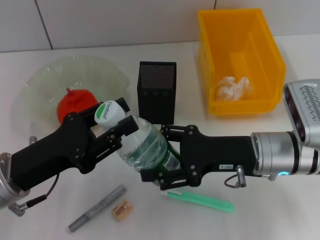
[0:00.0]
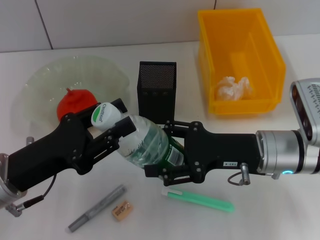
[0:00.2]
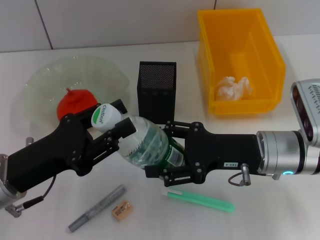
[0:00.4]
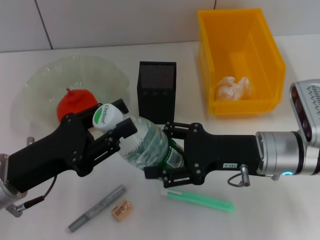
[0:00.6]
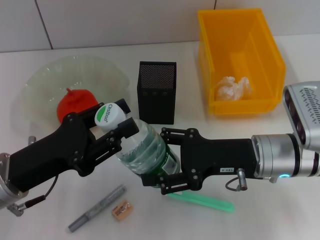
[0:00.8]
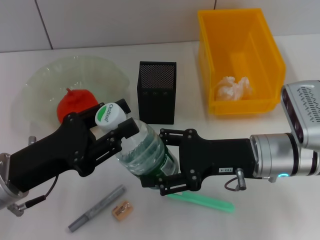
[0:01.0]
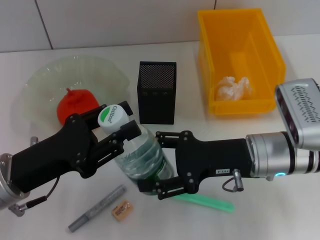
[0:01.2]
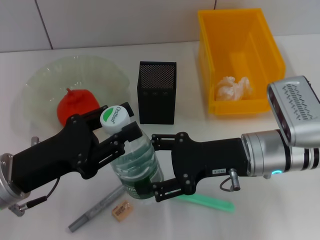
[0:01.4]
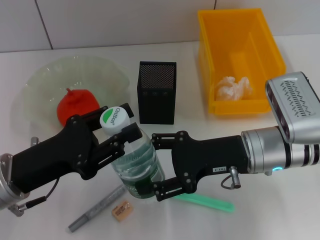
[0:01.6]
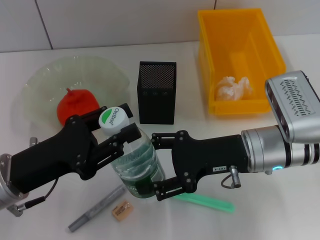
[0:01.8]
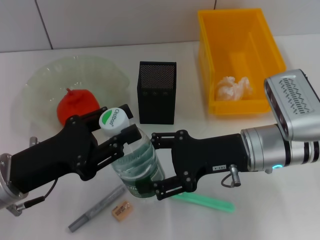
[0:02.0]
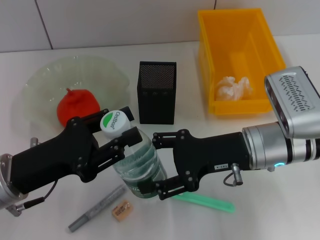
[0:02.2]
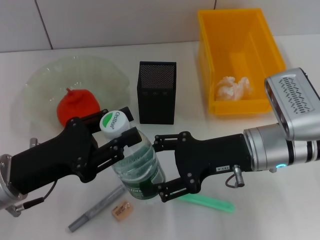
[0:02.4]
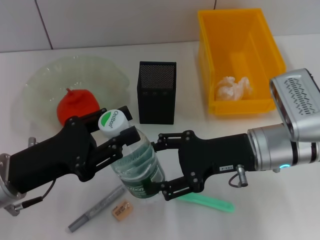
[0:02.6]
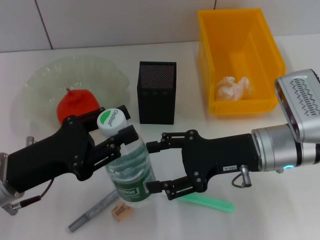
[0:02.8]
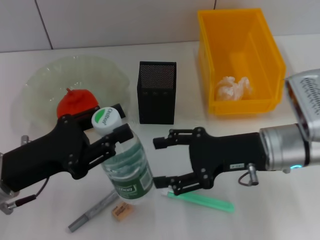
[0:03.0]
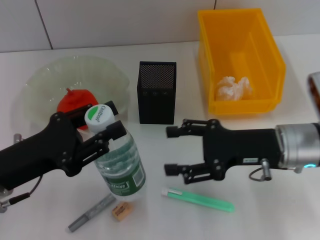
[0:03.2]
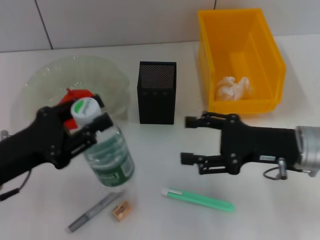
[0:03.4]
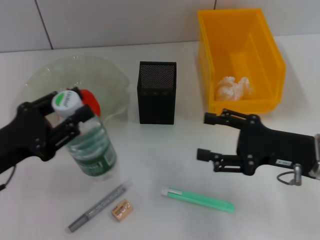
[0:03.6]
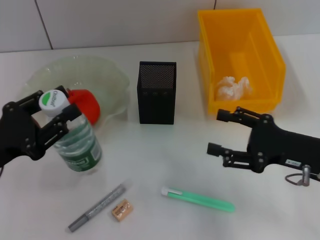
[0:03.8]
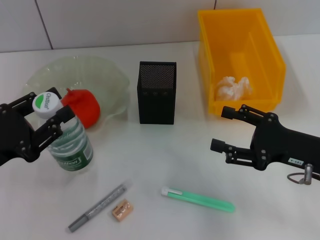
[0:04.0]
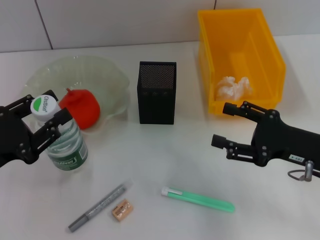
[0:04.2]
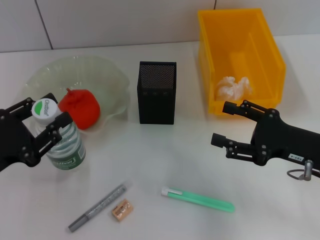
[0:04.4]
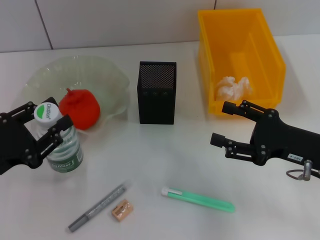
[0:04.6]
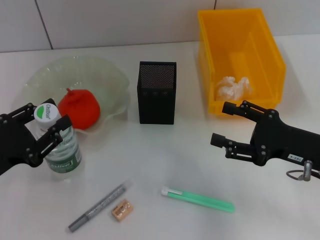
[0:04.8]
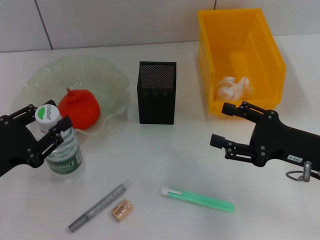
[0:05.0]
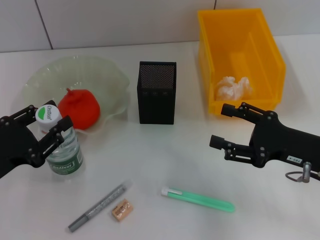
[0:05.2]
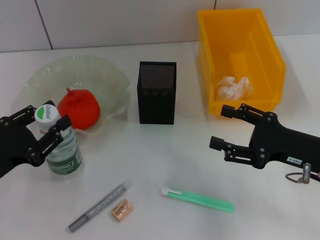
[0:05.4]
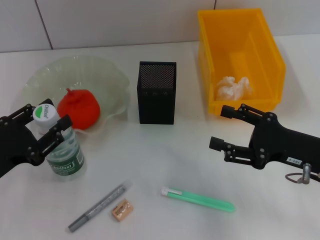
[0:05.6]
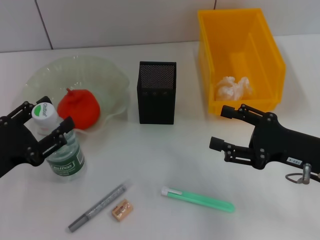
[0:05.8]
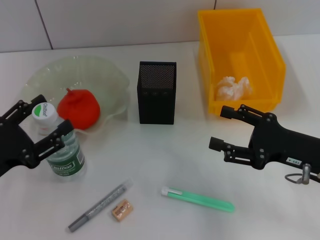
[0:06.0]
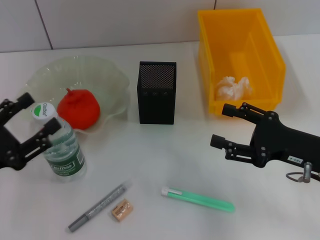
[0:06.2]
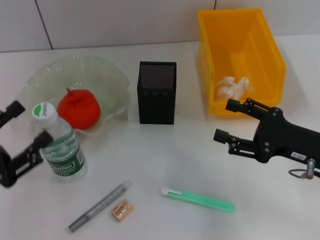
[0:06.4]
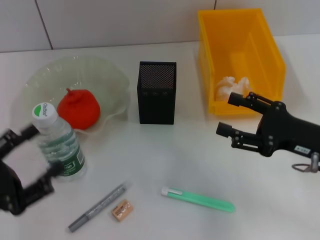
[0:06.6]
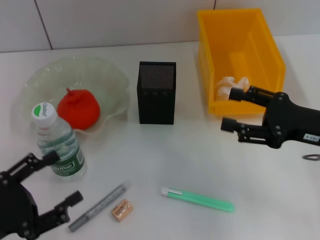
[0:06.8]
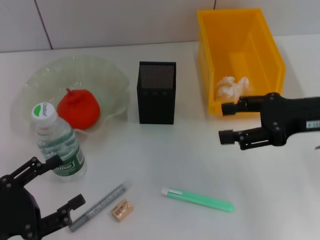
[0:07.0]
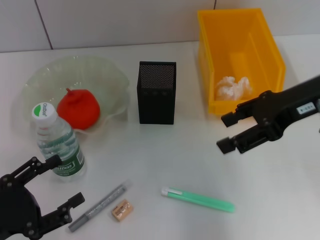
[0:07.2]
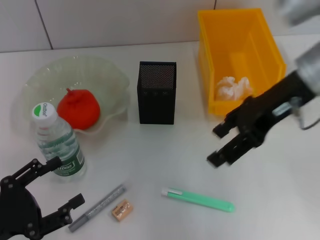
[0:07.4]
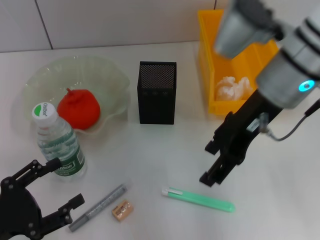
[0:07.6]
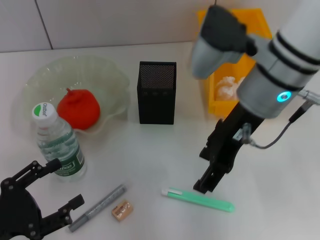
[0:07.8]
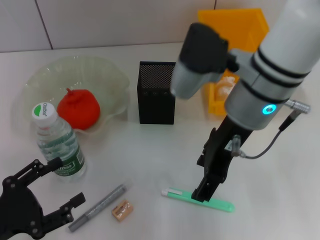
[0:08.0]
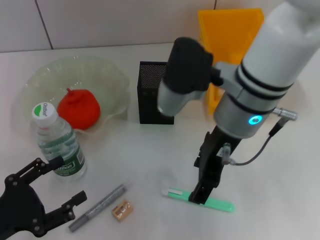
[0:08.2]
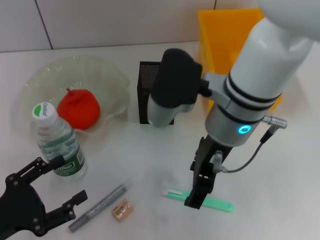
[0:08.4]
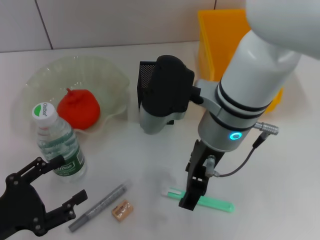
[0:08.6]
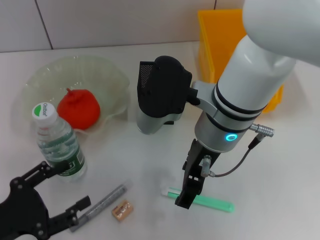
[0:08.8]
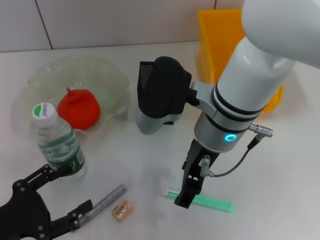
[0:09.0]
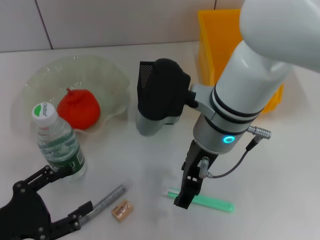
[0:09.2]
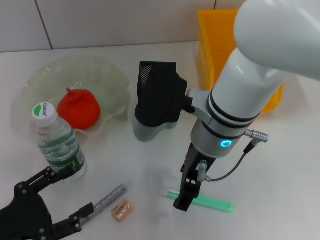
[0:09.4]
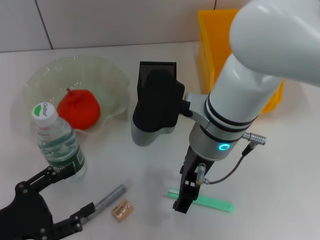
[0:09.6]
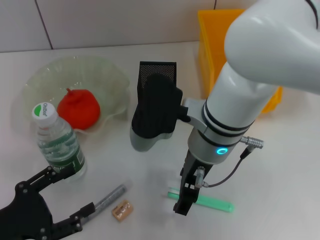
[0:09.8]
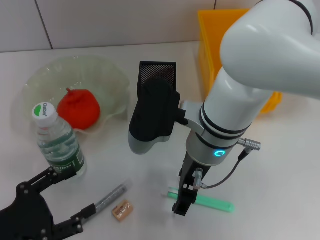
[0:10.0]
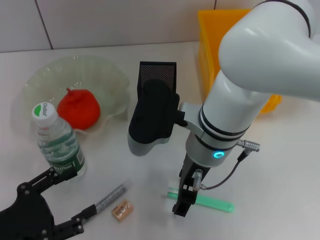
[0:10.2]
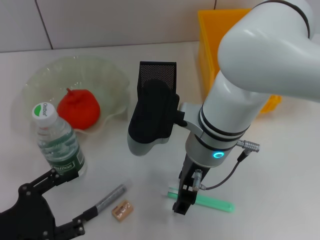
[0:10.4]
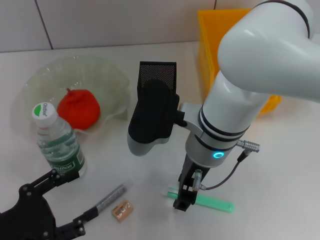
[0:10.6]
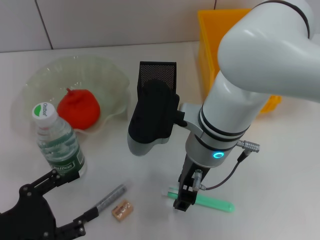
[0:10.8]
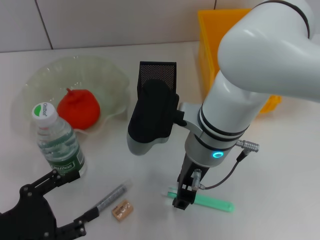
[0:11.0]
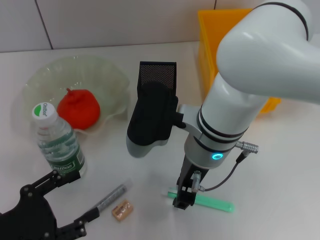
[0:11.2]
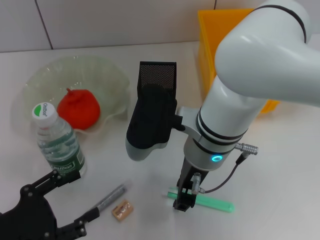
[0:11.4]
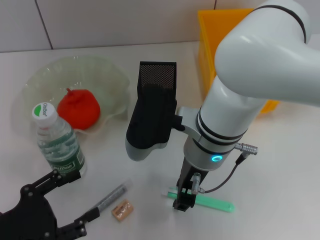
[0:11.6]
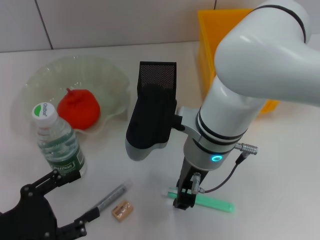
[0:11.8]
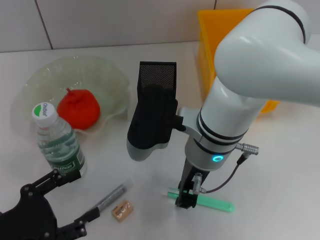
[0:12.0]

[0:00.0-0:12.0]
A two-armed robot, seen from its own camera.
Step, 0:00.0 to 0:02.8: Pass the water bottle from the right hand to the left hand.
Step, 0:03.0 to 0:05.6: Place the water bottle on the table with the left hand.
0:00.0 to 0:03.0: The grippers stay close to where they were, moving slightly.
0:03.0 to 0:04.4: The left gripper heads to the left, covering approximately 5 cm. Meanwhile the right gripper goes approximately 10 cm to the right.
0:04.4 to 0:06.0: The left gripper opens up.
0:06.0 to 0:07.6: The left gripper shifts about 5 cm backward. Meanwhile the right gripper moves upward, to the left and forward, approximately 20 cm.
0:07.6 to 0:09.0: The right gripper is displaced to the left and downward by some 10 cm.
0:09.0 to 0:10.4: There are only small adjustments of the grippers.
0:10.4 to 0:12.0: The right gripper closes.

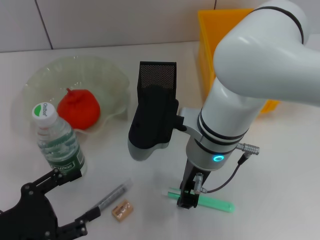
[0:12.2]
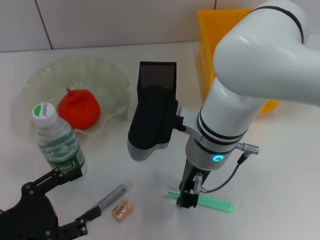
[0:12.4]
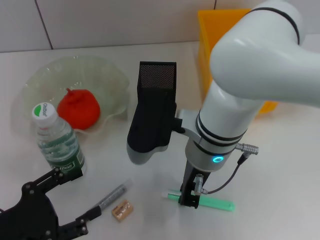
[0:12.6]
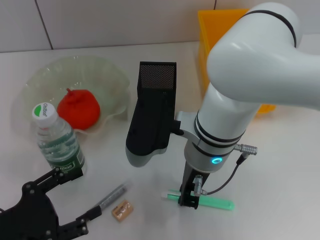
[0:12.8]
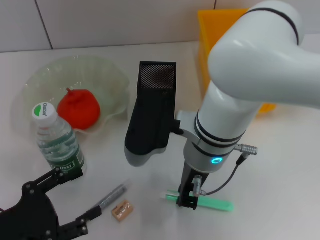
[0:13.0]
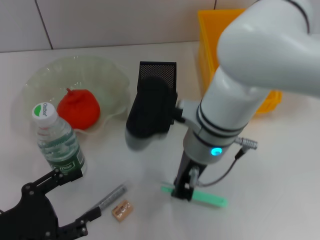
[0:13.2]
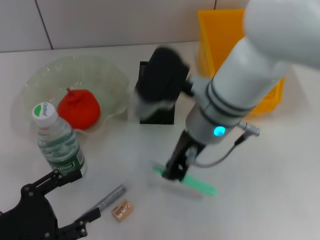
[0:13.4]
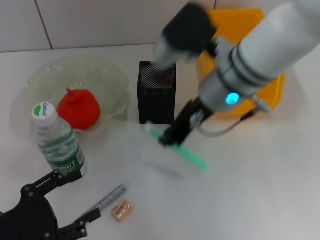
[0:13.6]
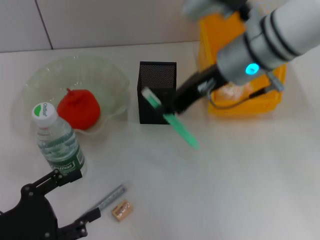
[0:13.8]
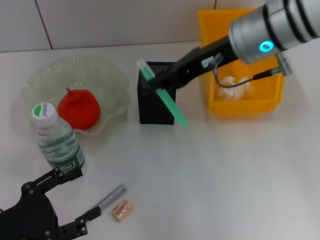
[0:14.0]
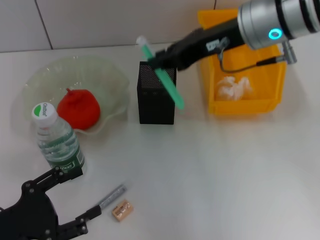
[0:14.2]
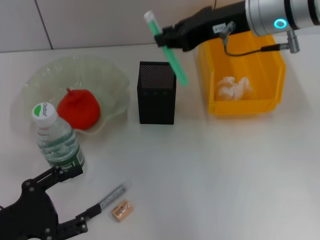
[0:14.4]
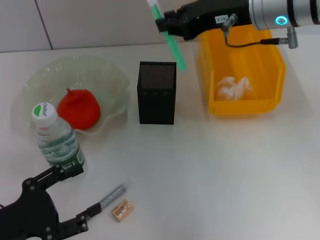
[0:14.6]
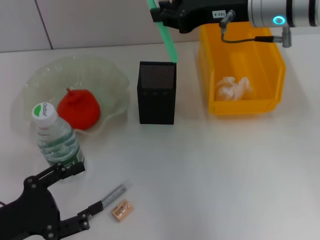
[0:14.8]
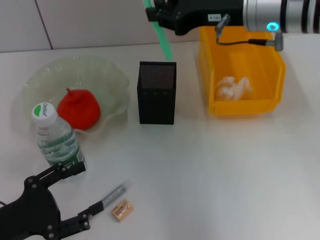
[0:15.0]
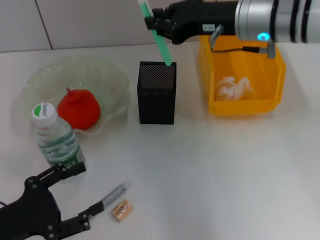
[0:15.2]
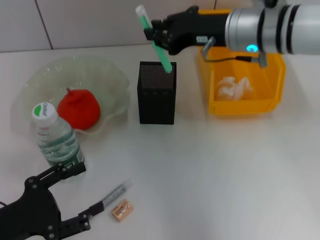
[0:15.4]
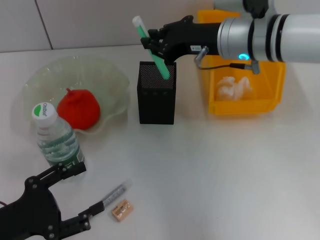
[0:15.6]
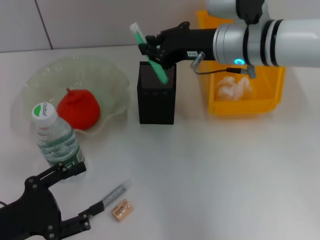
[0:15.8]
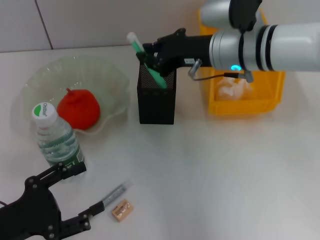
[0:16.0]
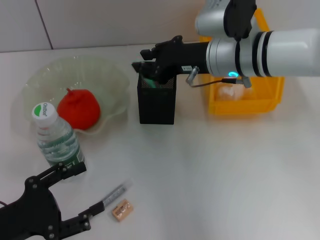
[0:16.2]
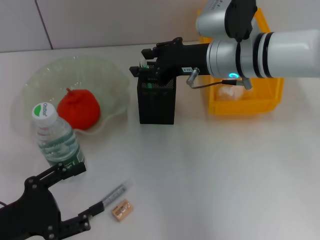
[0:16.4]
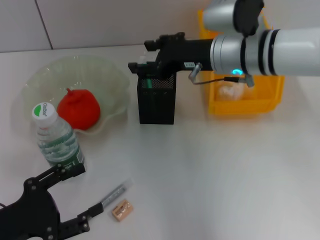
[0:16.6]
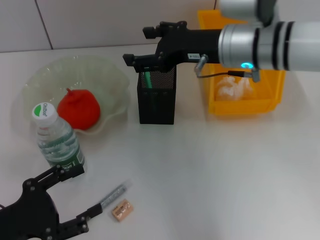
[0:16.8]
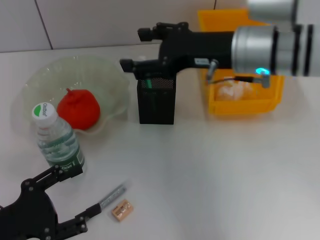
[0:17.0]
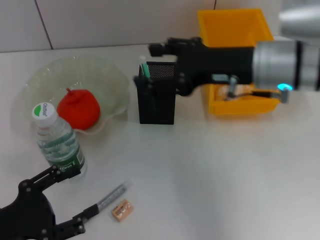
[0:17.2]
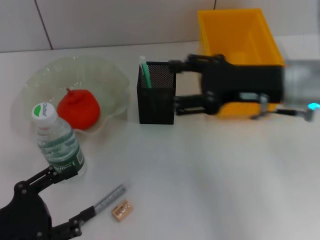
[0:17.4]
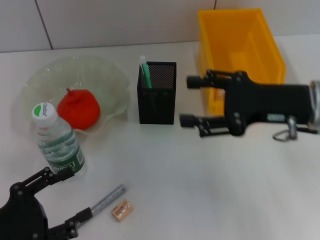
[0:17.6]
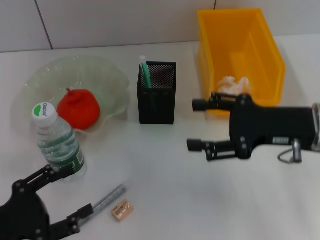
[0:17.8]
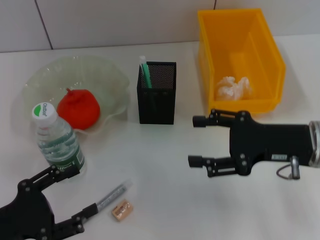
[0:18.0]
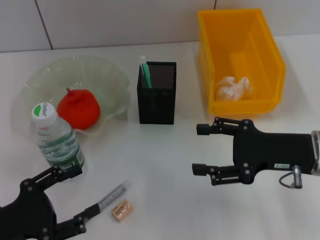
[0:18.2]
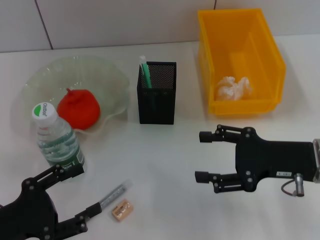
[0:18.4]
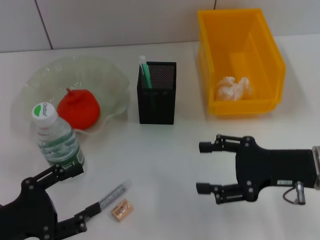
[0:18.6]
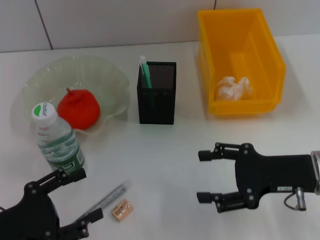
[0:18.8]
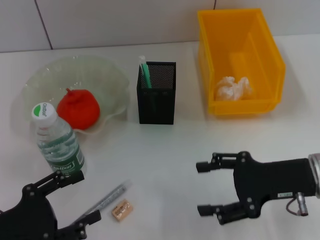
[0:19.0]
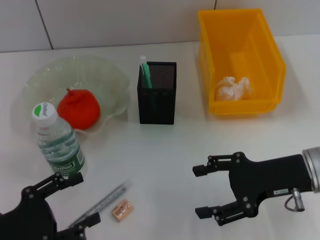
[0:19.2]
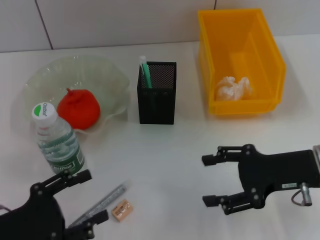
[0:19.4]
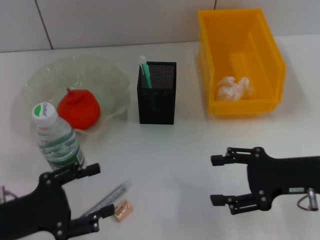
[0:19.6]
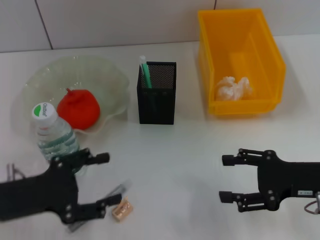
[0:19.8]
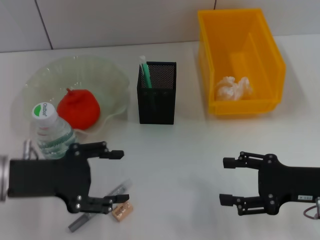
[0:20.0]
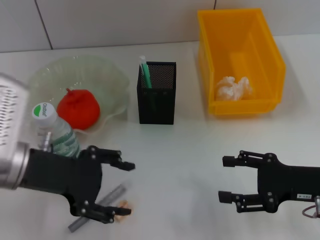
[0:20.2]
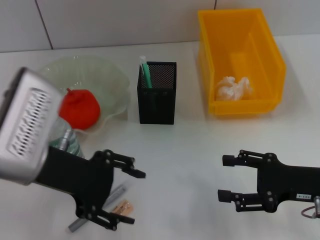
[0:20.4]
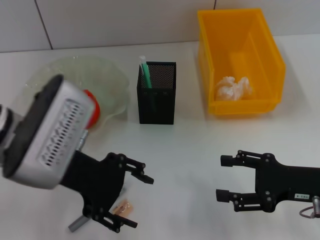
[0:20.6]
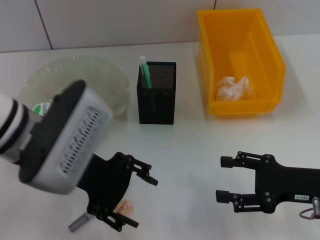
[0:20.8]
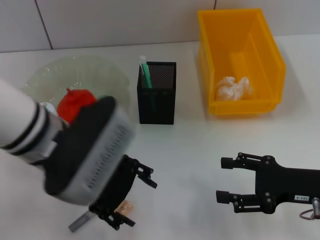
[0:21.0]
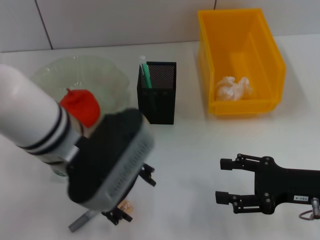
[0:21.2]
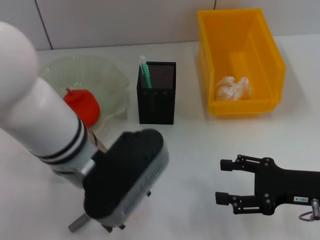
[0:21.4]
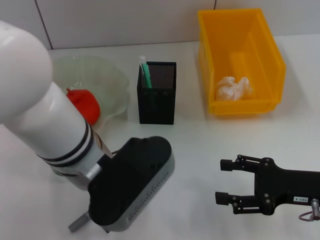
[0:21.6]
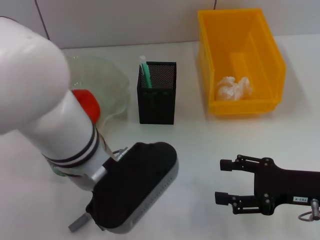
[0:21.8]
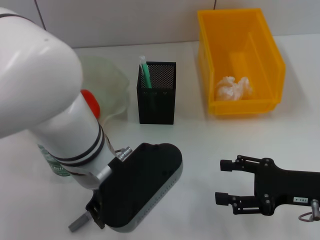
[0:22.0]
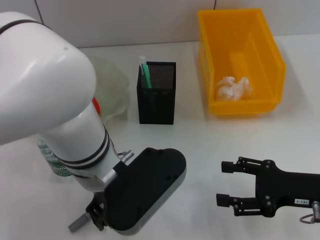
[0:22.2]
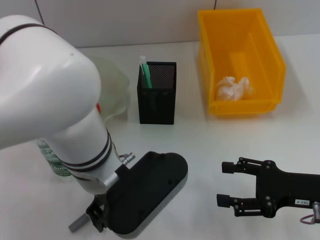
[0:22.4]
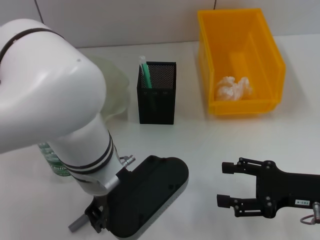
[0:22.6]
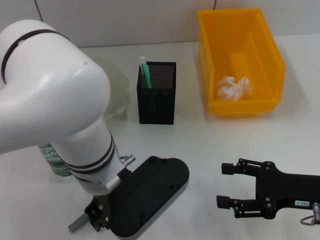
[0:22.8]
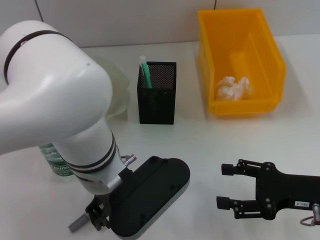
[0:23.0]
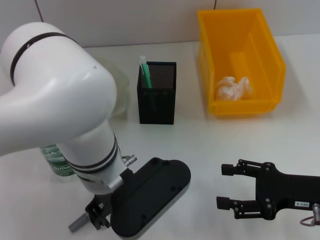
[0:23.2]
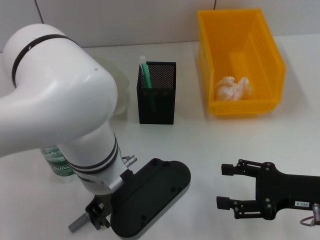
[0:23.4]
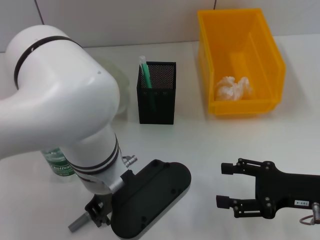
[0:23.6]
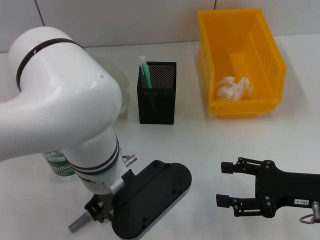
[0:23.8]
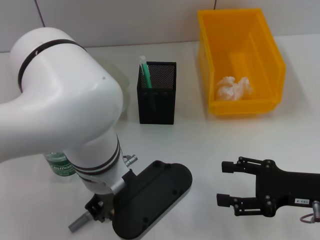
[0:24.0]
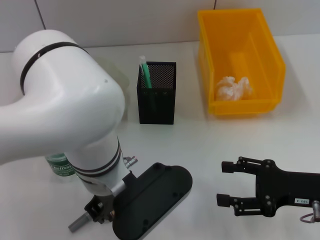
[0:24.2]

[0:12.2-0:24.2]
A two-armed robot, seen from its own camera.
Step, 0:12.6 to 0:16.2: Place the blue utility knife into the pen holder with the right hand.
0:12.2 to 0:13.8: The right gripper heads upward, to the right and forward, covering some 10 cm.
0:15.2 to 0:16.6: The right gripper moves roughly 5 cm.
0:16.6 to 0:18.2: The right gripper shifts roughly 20 cm backward, to the right and downward, and opens its fingers.
0:18.2 to 0:19.8: The right gripper shifts by some 5 cm.
0:19.8 to 0:21.2: The left gripper is displaced to the right, upward and forward by some 20 cm.
0:22.6 to 0:24.2: Neither gripper changes place.
